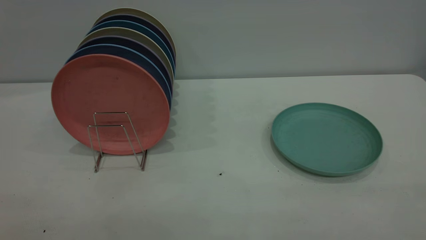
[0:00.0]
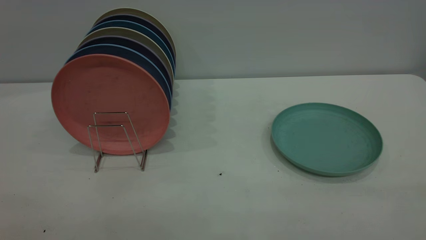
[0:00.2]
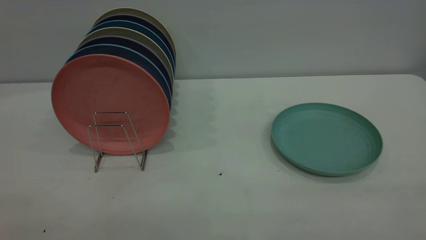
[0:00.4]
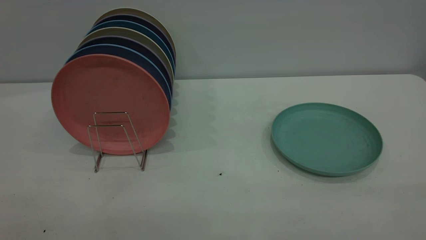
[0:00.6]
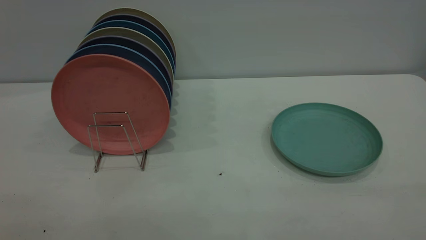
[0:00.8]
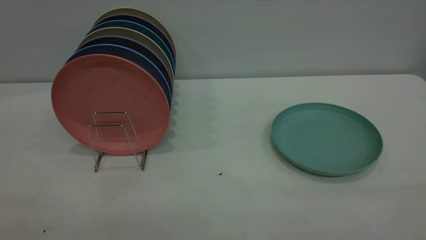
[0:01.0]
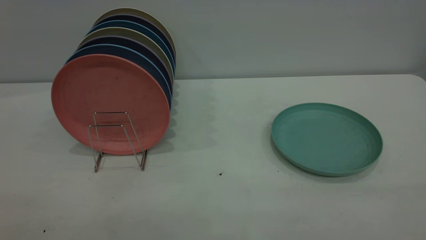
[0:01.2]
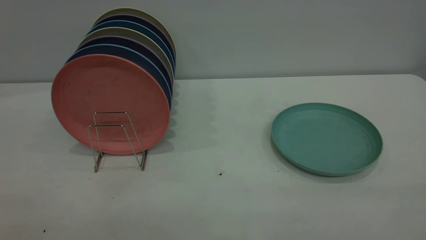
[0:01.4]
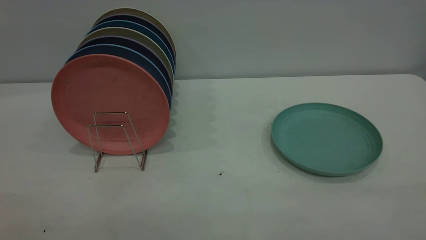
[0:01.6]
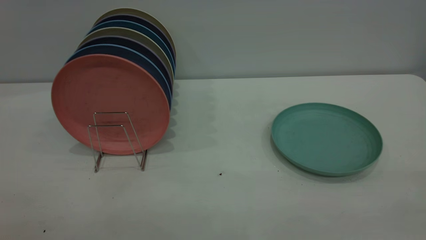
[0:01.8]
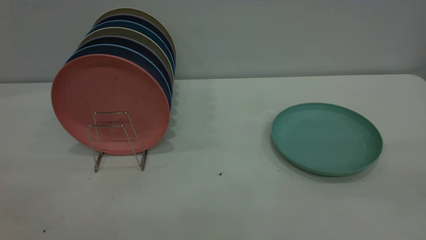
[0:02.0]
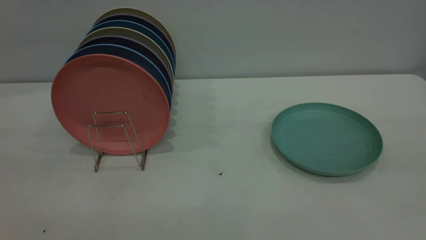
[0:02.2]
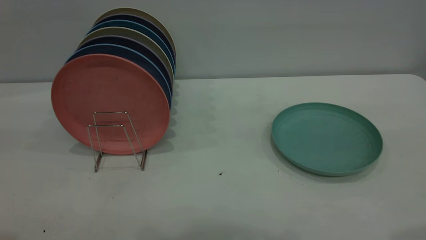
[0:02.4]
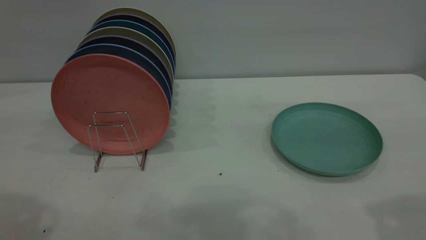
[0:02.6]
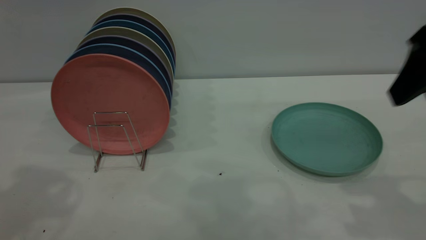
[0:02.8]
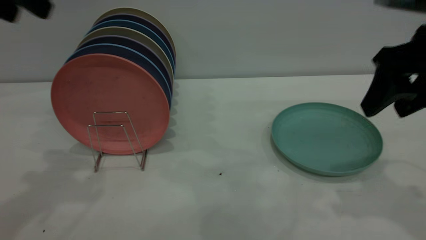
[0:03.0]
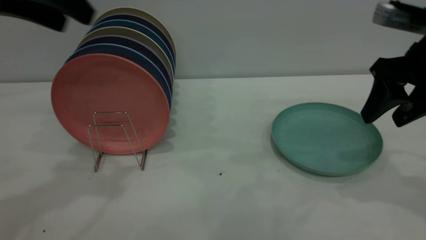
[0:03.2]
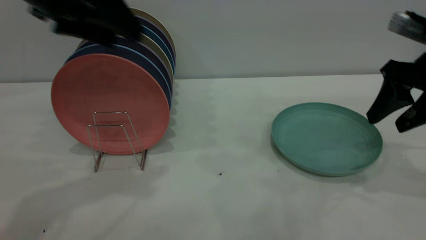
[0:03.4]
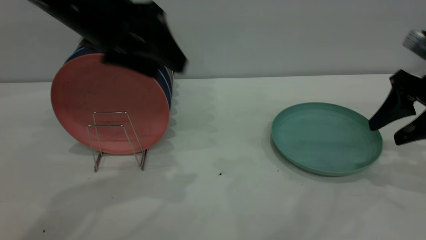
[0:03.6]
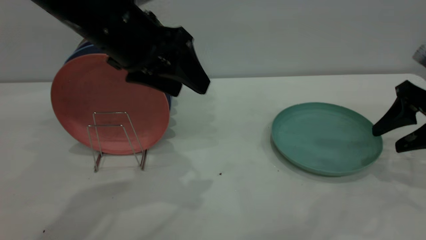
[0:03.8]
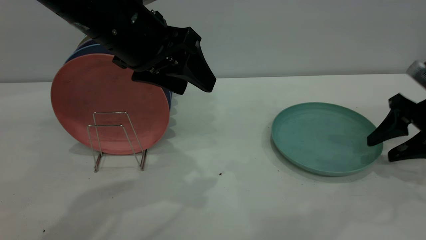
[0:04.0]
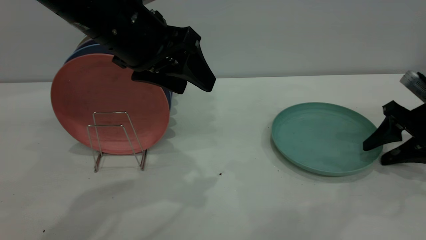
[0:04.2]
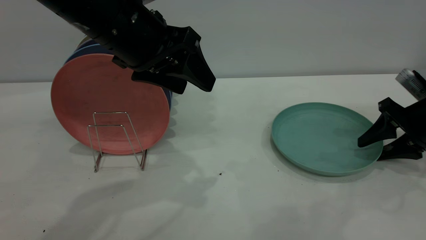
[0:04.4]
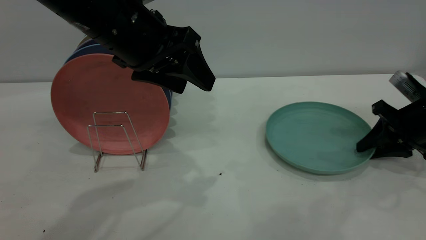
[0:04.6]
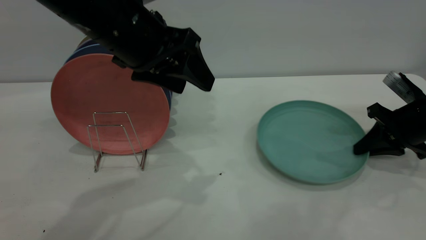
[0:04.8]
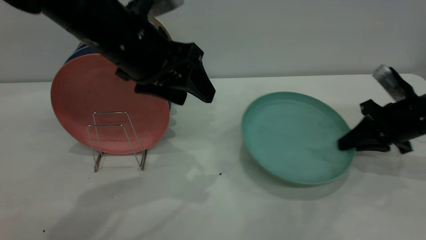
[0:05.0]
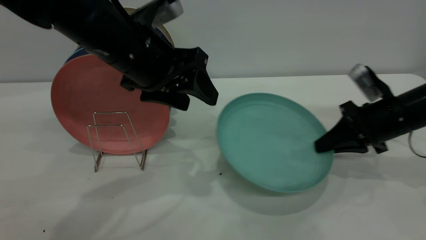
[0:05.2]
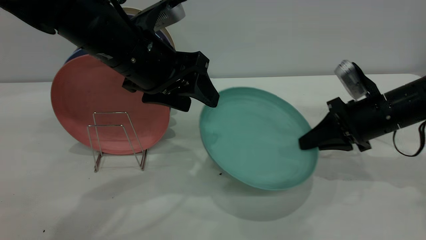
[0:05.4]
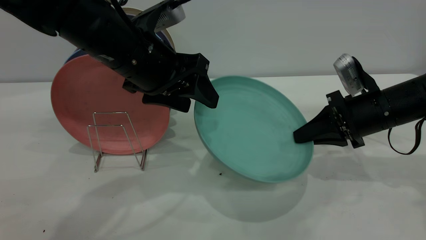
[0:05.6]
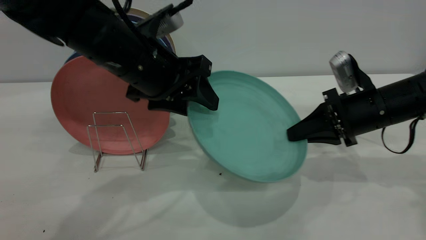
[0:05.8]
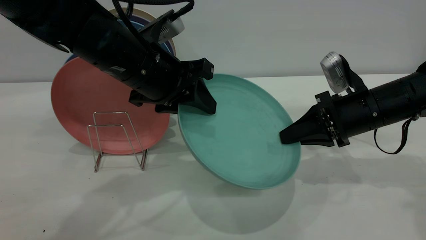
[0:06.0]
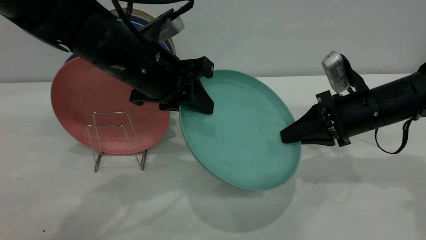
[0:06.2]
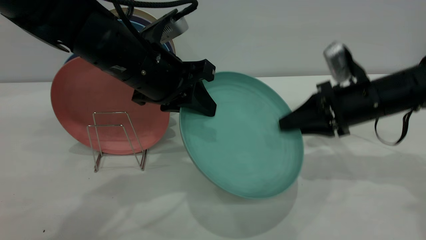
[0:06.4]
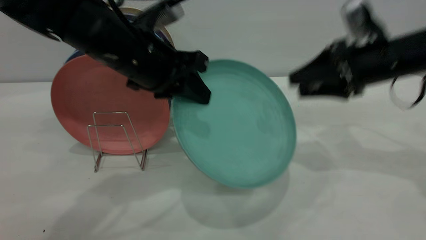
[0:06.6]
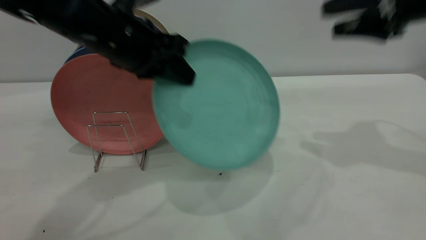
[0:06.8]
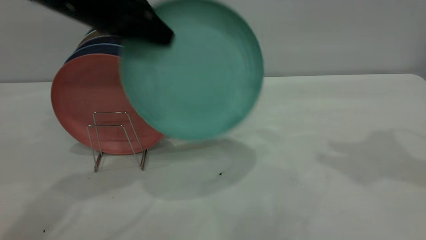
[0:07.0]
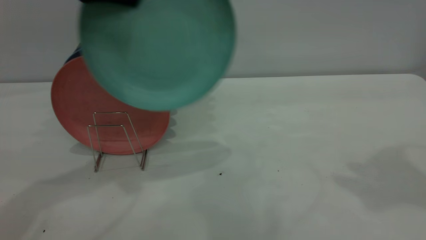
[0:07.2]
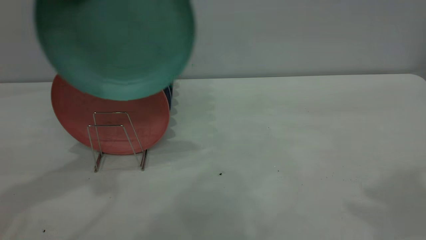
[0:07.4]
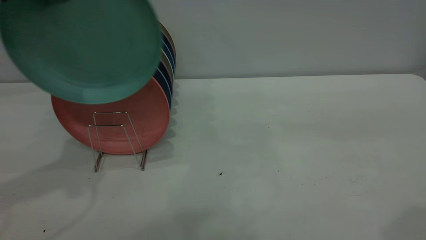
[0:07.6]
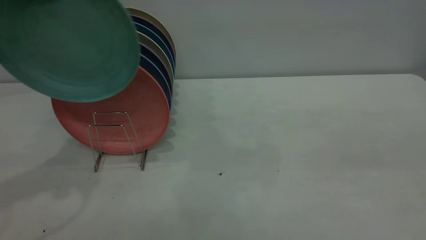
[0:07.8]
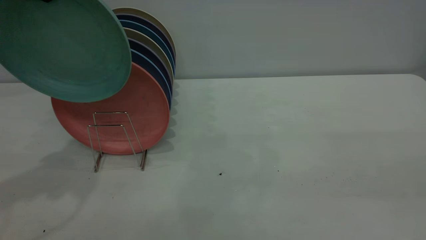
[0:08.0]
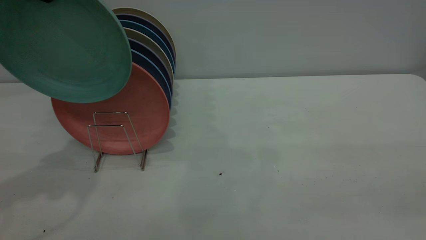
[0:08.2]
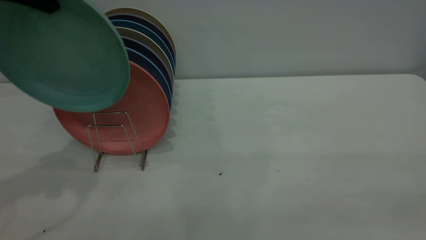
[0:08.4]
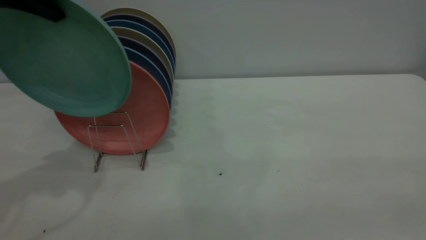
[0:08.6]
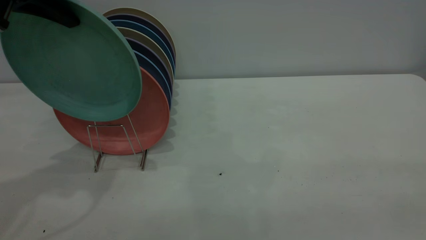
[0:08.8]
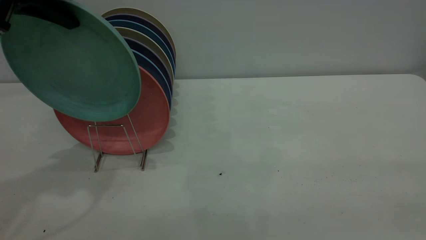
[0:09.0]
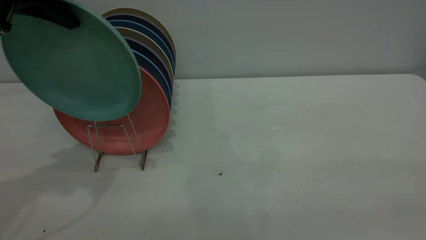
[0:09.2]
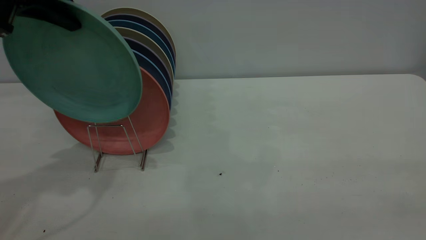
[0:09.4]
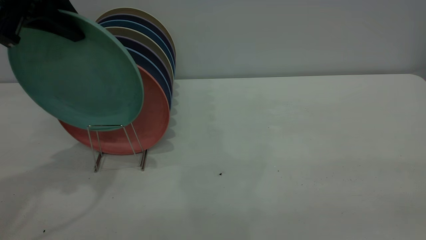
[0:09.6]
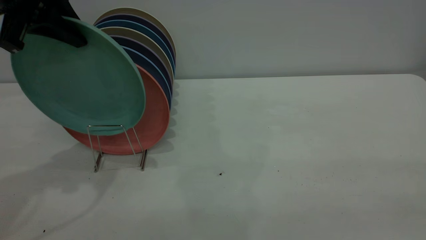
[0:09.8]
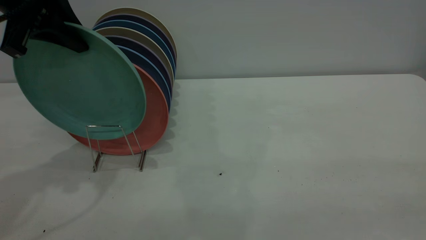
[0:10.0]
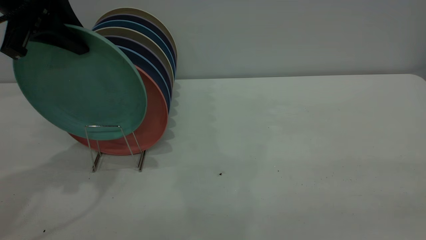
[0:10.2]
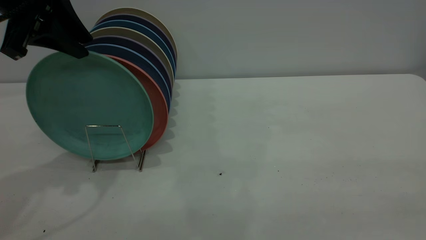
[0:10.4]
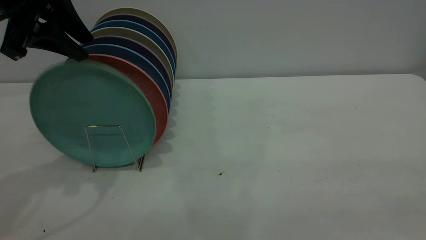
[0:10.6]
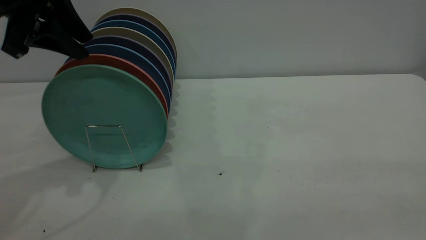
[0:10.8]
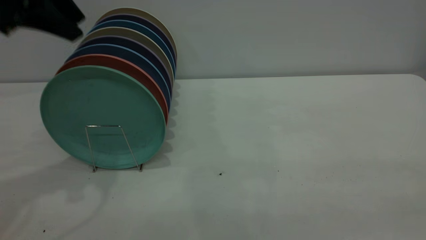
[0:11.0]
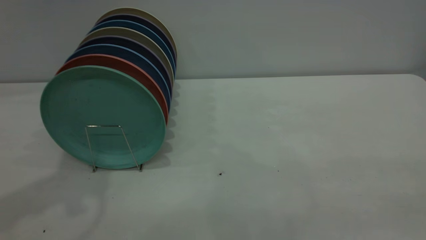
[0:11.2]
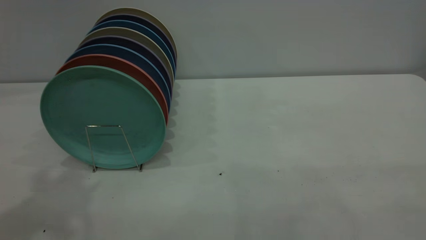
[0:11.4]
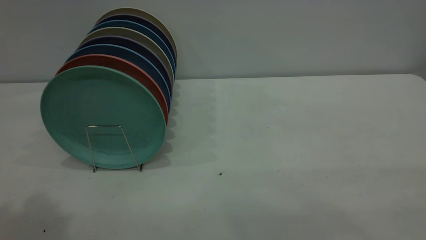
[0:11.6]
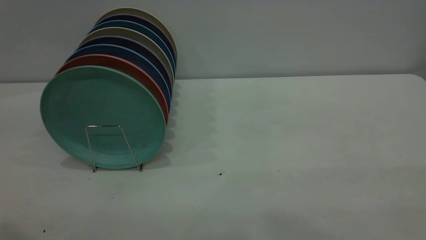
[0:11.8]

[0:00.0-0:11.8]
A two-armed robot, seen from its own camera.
Task of the whole recording: the right gripper grasp the green plate, the right gripper pass the green plate to the left gripper, and the left gripper place the green plate on the plate rack.
Step, 0:00.0 to 0:05.0: Pick up the plate with the right gripper.
Step, 0:05.2 to 0:06.4: Pass the plate from the right gripper to the left gripper.
Step, 0:06.6 to 0:10.8: Place the plate on the shelf.
0:00.0 to 0:01.4: Both grippers stay put.
0:01.4 to 0:03.0: Both grippers move forward, roughly 30 cm.
0:03.0 to 0:04.4: The left gripper is displaced to the right and downward by roughly 20 cm. The right gripper goes some 20 cm downward, to the right and forward.
0:04.4 to 0:06.0: The left gripper heads downward, covering some 5 cm, and closes. Meanwhile the right gripper moves to the left, some 10 cm, and closes.
0:06.0 to 0:07.4: The left gripper shifts roughly 20 cm upward and to the left; the right gripper moves upward and backward, roughly 35 cm, and opens.
0:07.4 to 0:08.8: The right gripper goes approximately 25 cm backward.
0:08.8 to 0:10.4: The left gripper opens.
0:10.4 to 0:11.8: The left gripper moves backward and upward, approximately 25 cm.
